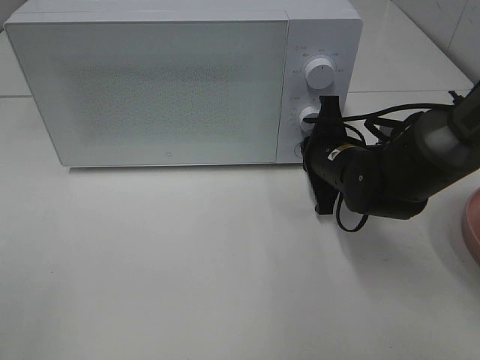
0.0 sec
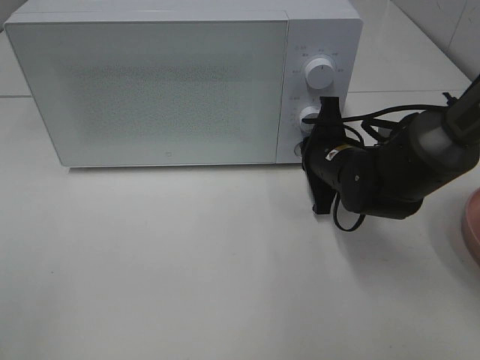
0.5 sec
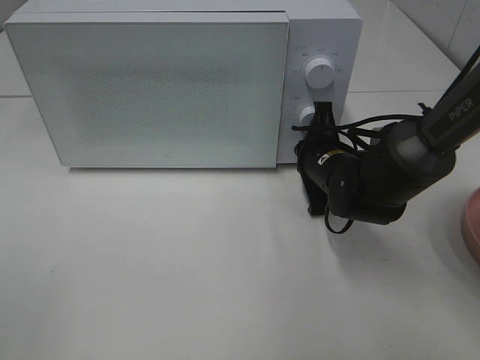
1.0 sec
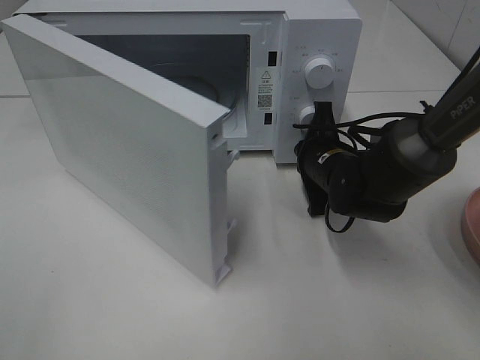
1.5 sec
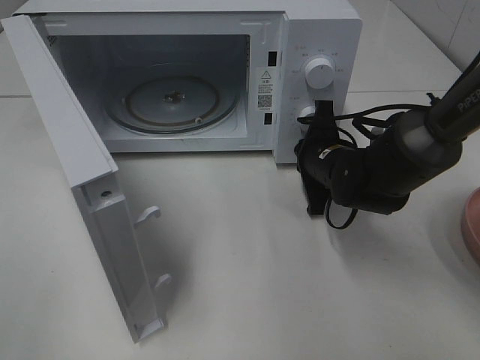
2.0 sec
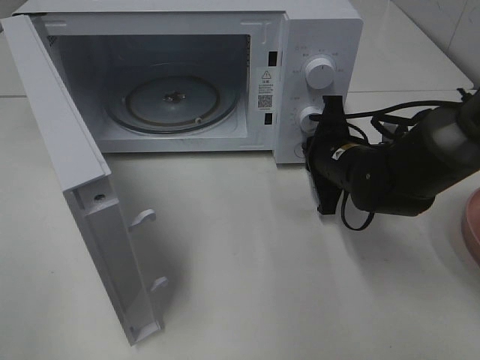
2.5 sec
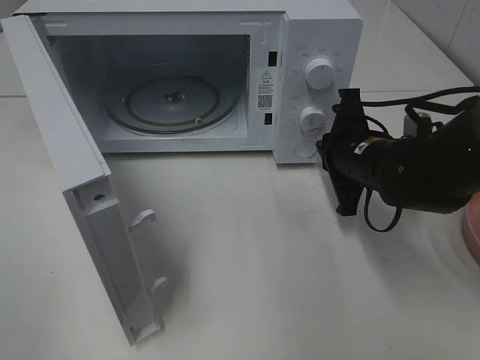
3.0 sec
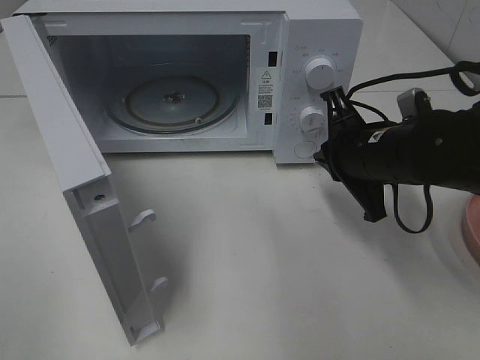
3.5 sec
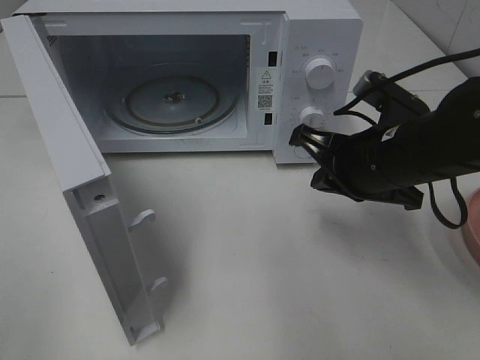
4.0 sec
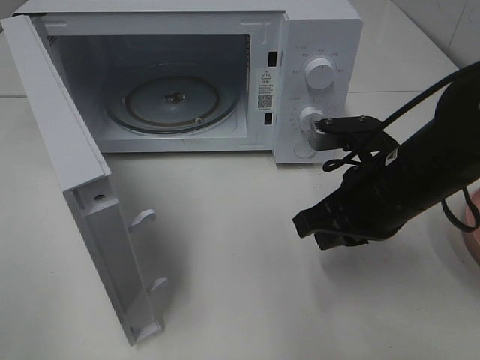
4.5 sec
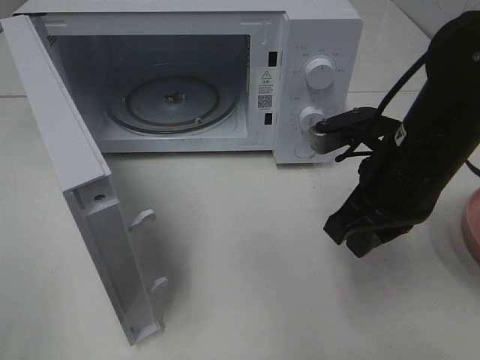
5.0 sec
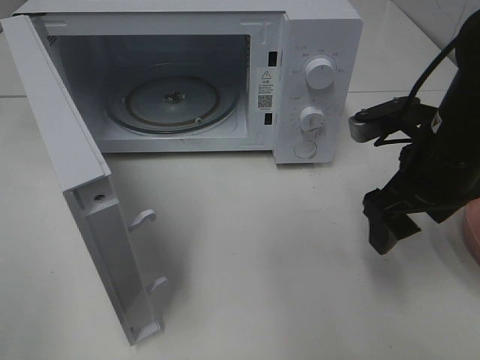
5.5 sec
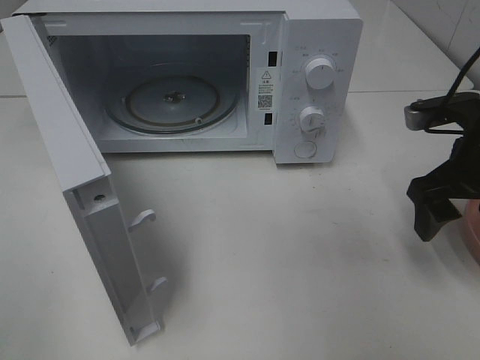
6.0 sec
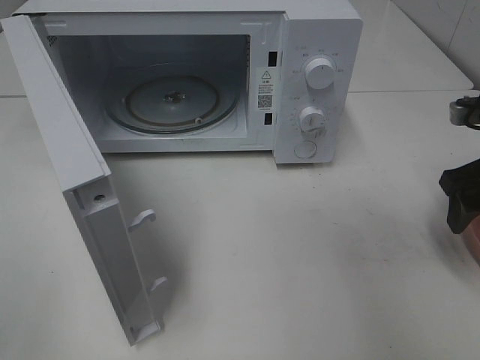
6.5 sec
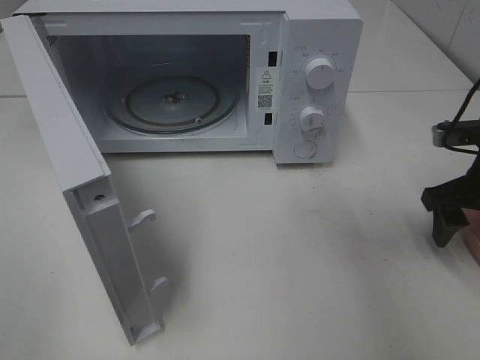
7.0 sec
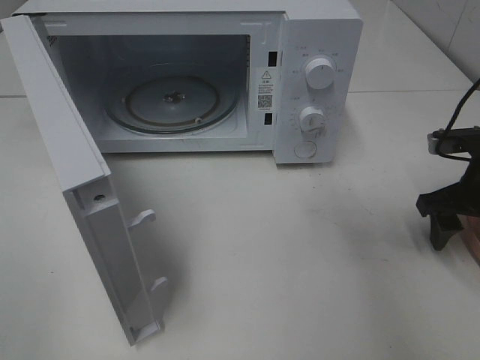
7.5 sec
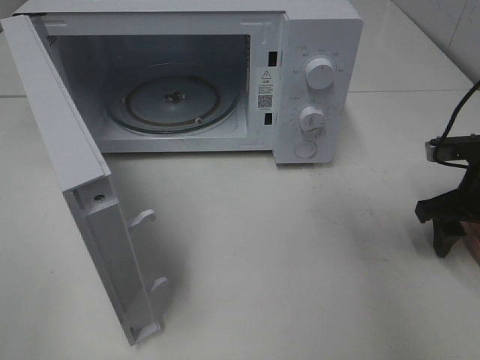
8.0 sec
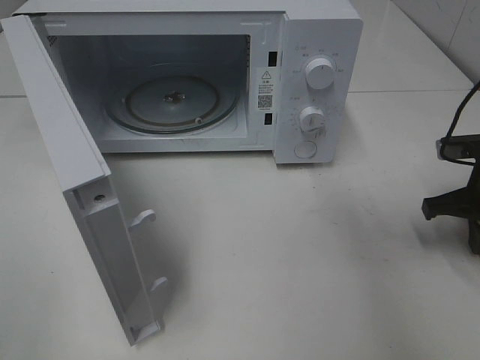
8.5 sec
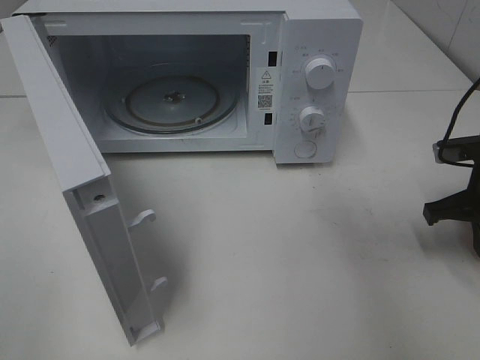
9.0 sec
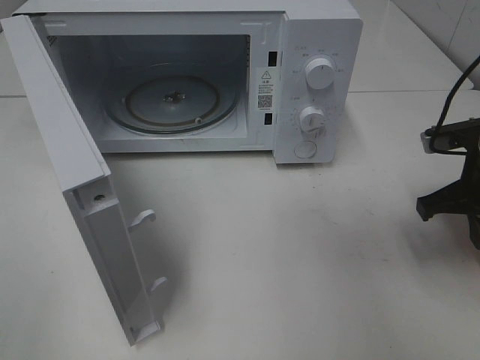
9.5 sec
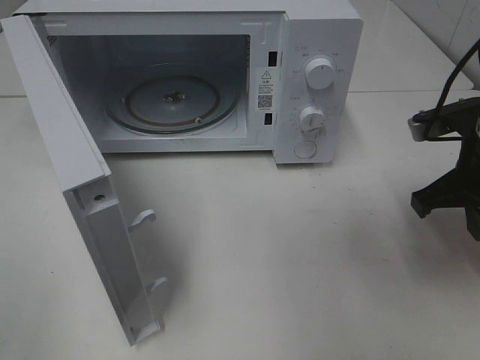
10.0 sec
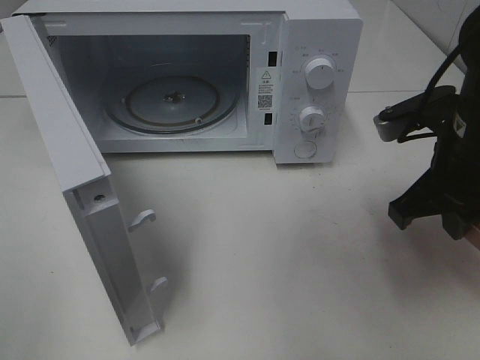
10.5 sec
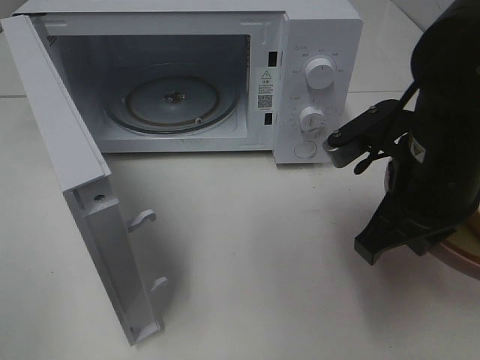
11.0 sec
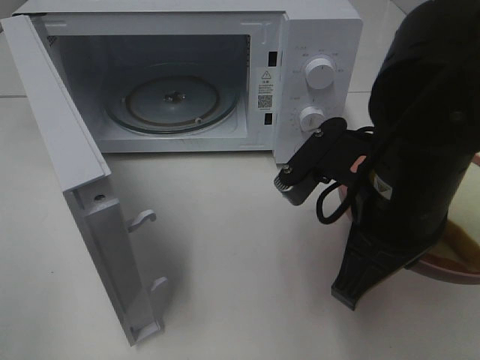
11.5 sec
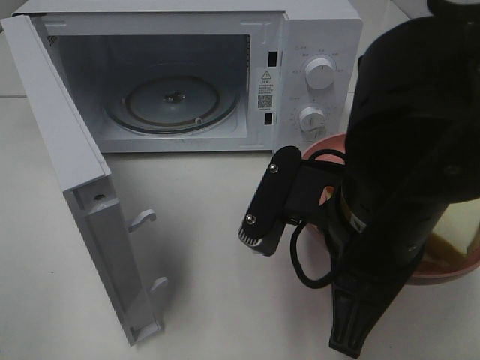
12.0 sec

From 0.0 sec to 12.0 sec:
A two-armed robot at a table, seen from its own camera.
Task of the whole recording: Heat Sandwich.
Step, from 0.0 sec to 3.0 sec: Right hand: press the switch.
Step, from 3.5 sec to 9.0 sec: Right hand: grab the plate with the sandwich.
From 2.0 sec to 4.0 sec: The right gripper moves backward and upward, about 10 cm.
From 4.0 sec to 6.0 sec: The right gripper heads to the right, covering about 10 cm, and opens up.
From 6.0 sec to 8.0 sec: The right gripper moves downward, some 5 cm.
From 8.0 sec to 10.0 sec: The right gripper shifts roughly 10 cm upward and to the left, and closes up.
From 10.0 sec to 12.0 sec: The right gripper moves to the left and backward, approximately 20 cm.

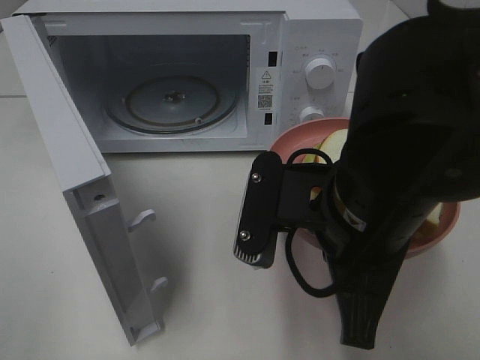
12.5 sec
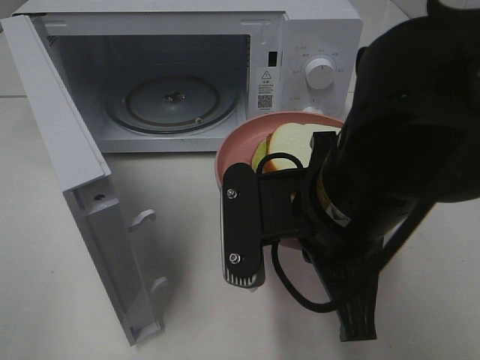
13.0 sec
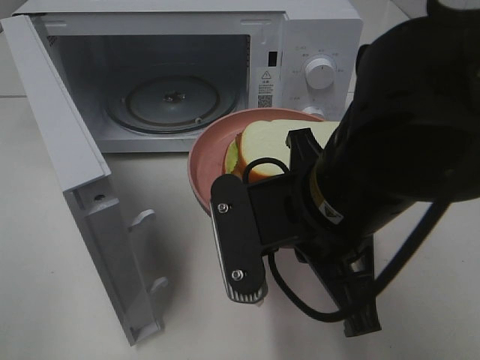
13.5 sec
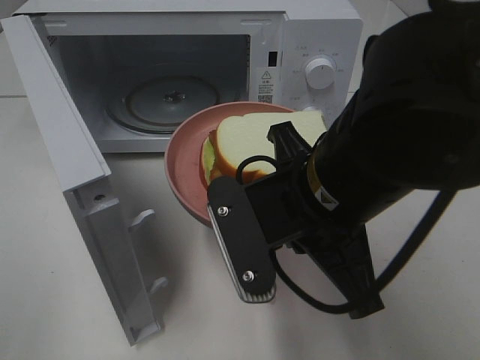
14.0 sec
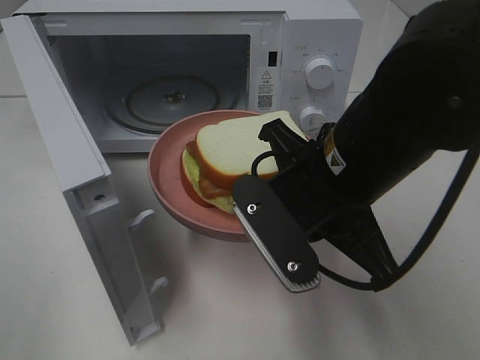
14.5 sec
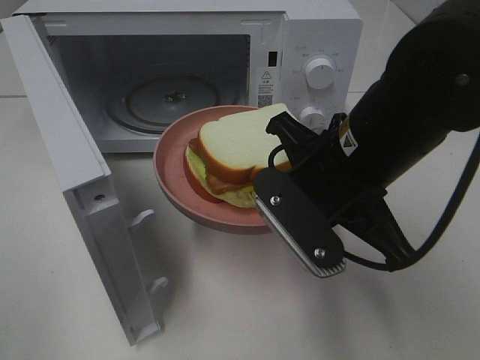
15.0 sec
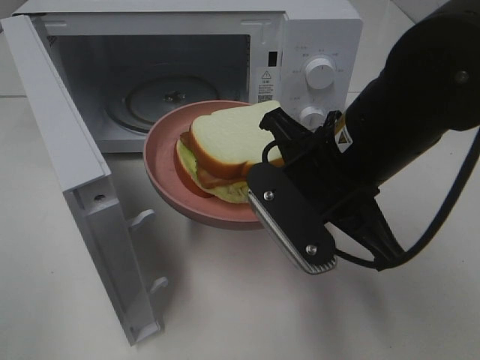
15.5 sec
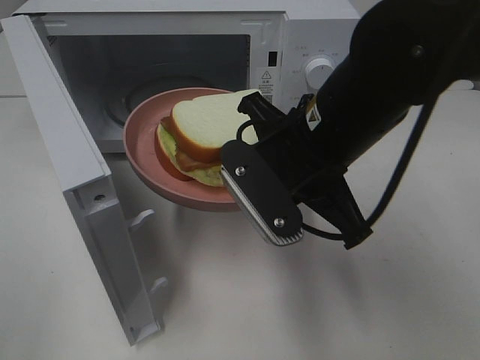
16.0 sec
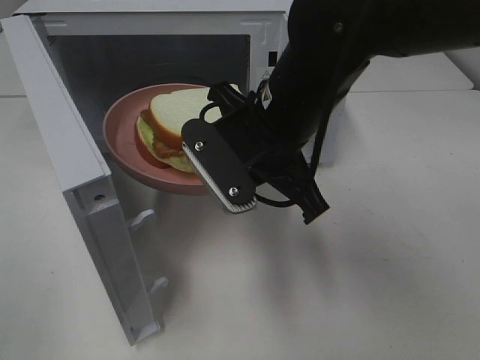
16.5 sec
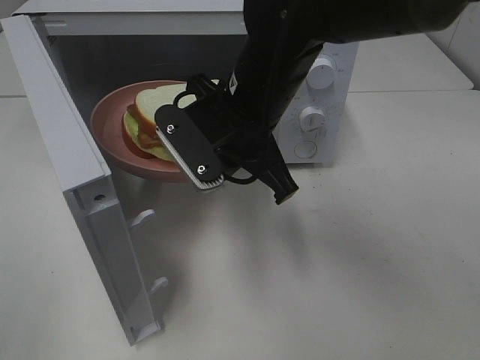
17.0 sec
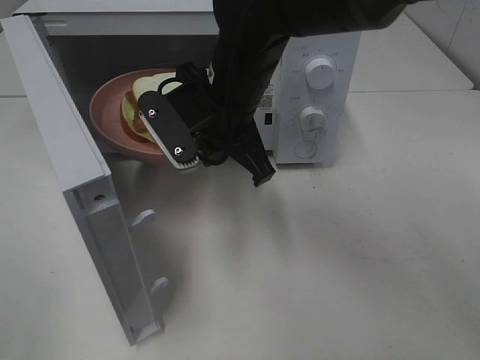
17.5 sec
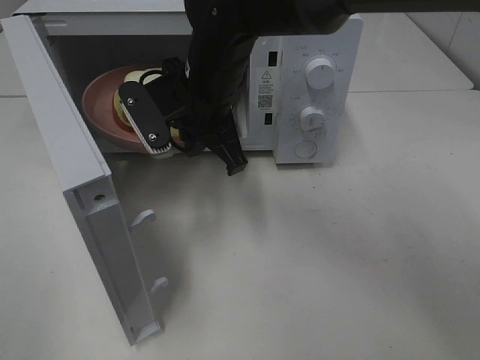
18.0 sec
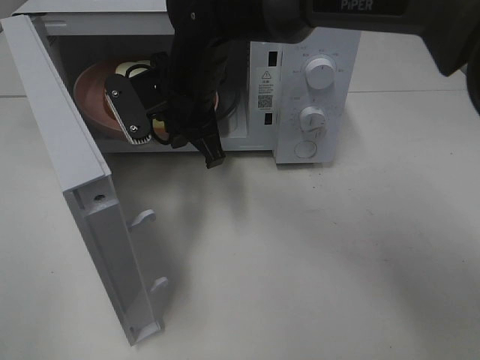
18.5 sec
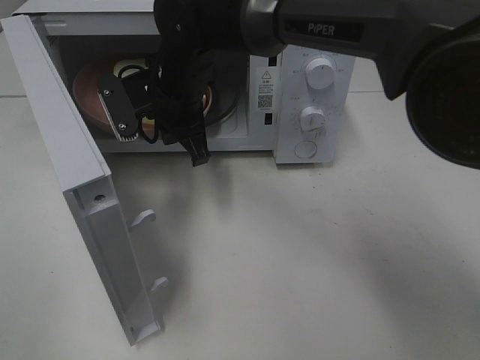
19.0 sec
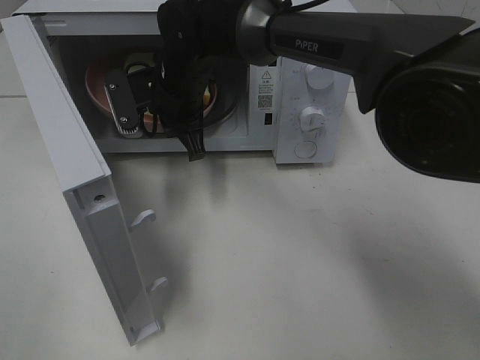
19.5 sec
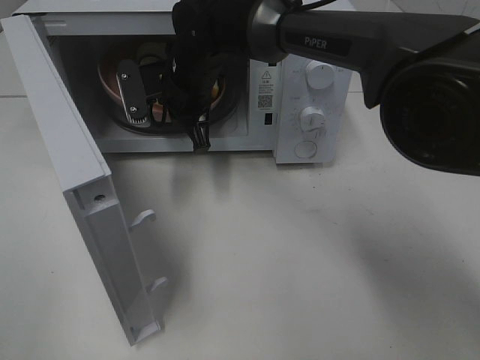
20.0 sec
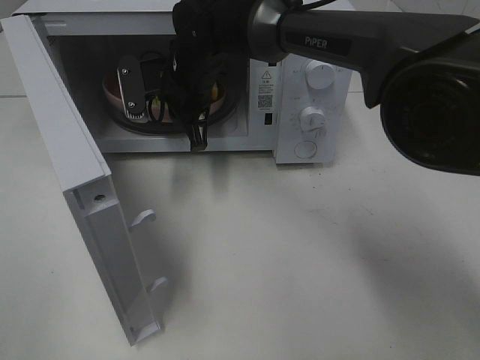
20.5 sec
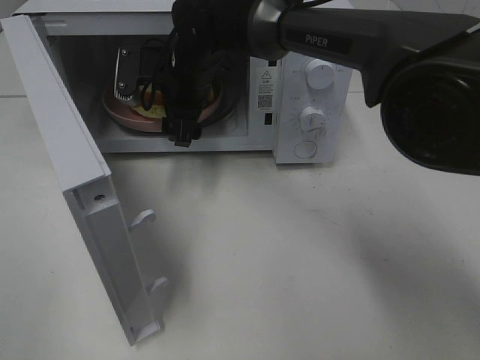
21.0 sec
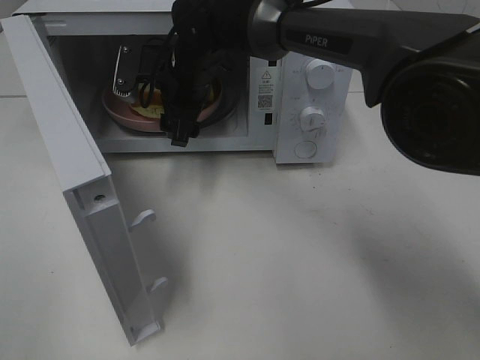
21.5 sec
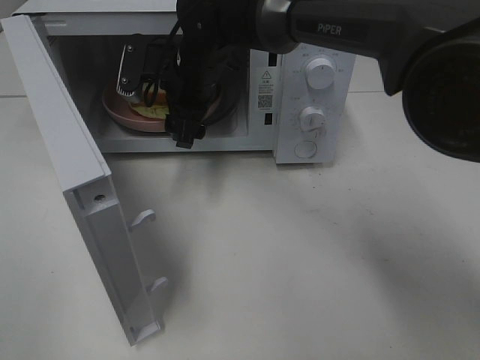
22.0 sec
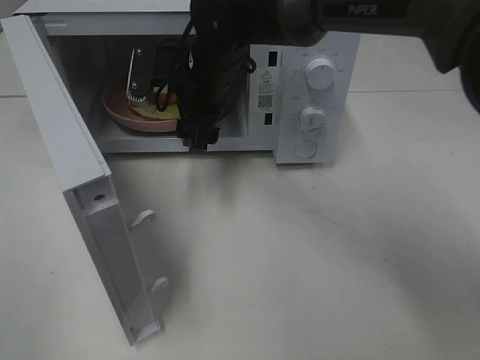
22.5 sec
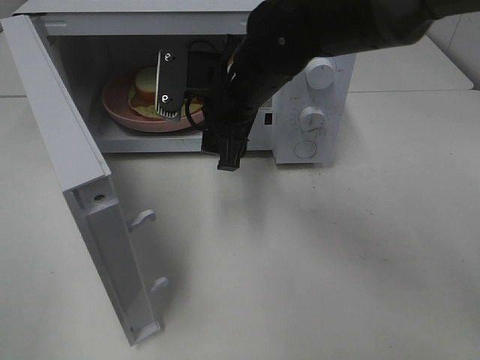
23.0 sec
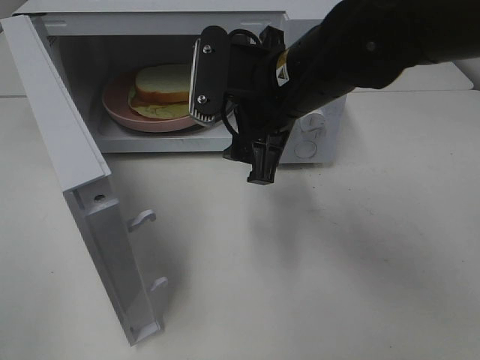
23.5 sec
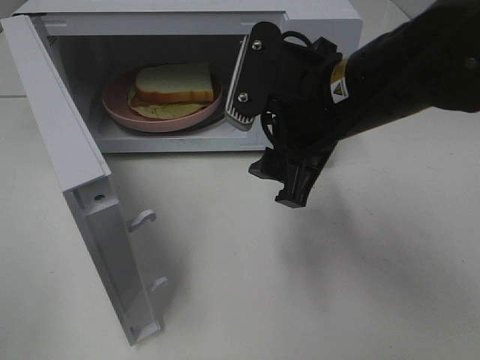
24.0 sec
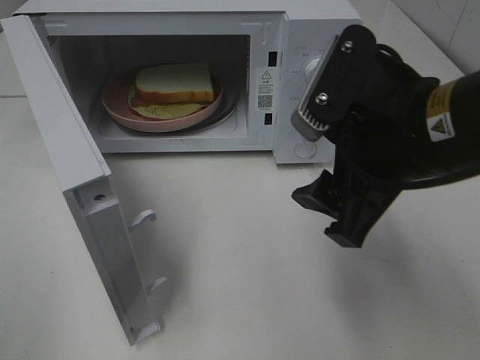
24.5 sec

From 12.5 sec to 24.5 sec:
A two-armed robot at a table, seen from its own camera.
Task of the whole recording: Heat Sandwich.
Step, from 12.5 sec to 22.5 sec: Right hand: place the plate in the microwave.
From 14.5 sec to 16.5 sec: The right gripper moves forward, approximately 5 cm.
From 16.5 sec to 18.5 sec: The right gripper travels forward and to the left by about 15 cm.
From 18.5 sec to 20.5 sec: The right gripper moves forward, approximately 5 cm.
From 20.5 sec to 22.5 sec: The right gripper opens up.
From 22.5 sec to 24.5 sec: The right gripper travels backward and to the right by about 25 cm.

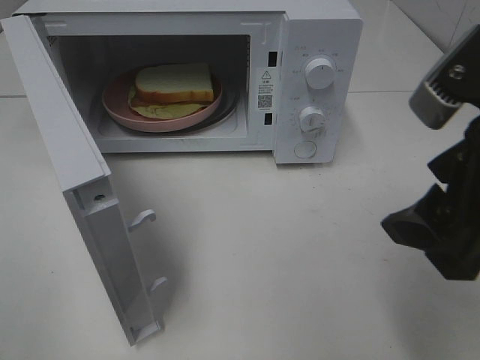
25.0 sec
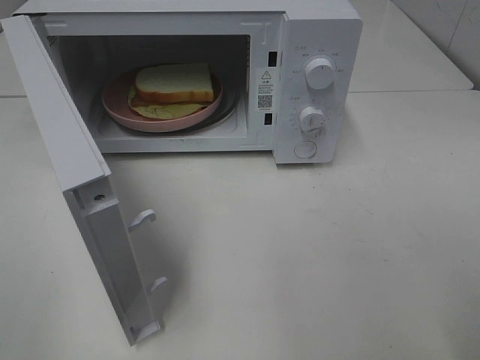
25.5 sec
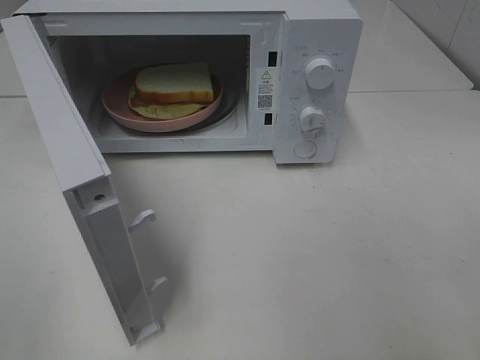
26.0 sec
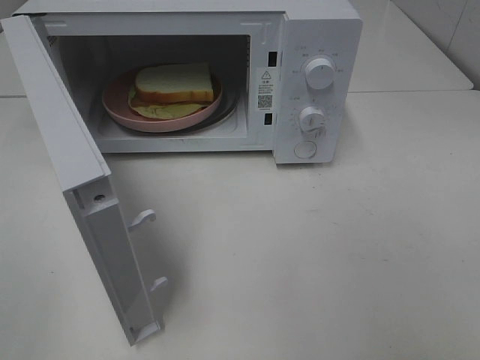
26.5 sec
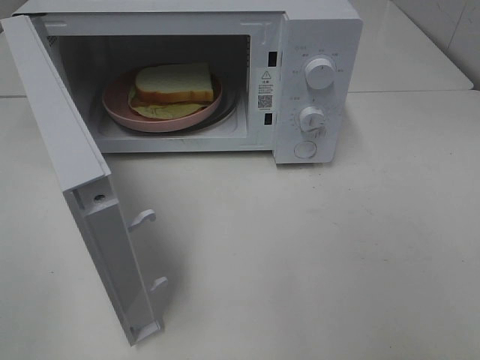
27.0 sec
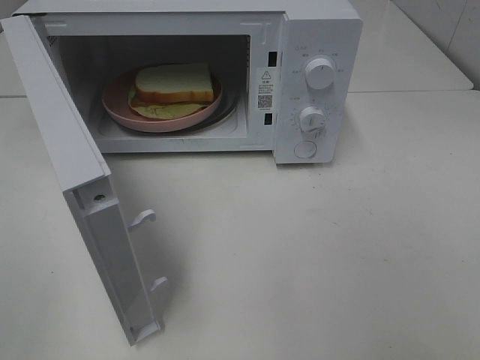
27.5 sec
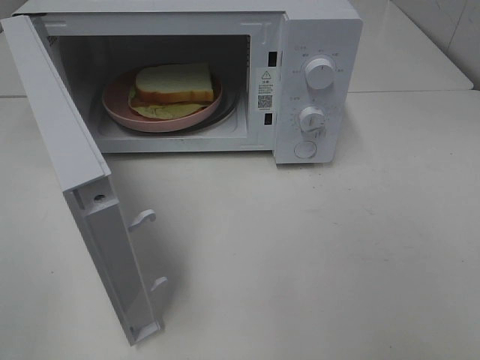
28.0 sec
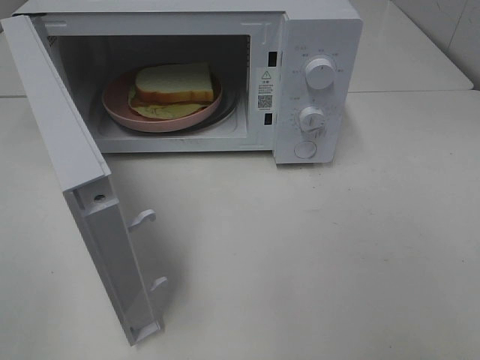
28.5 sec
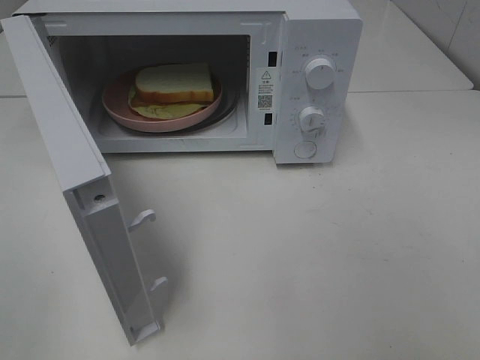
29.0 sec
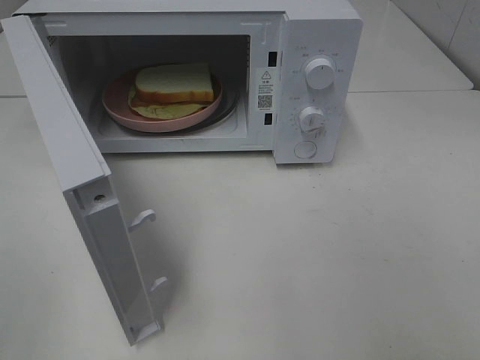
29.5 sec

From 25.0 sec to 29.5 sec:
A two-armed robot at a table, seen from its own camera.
Task of the whole recording: Heat Sandwich.
From 25.0 sec to 27.0 sec: The right gripper shifts about 15 cm backward and to the right.
